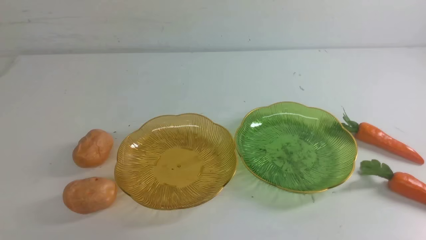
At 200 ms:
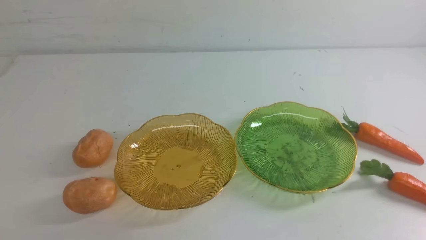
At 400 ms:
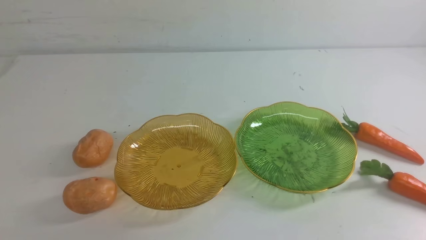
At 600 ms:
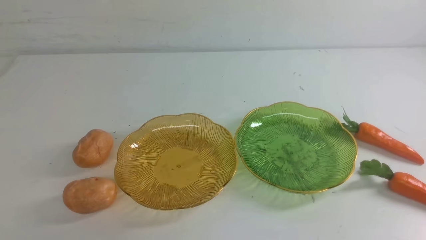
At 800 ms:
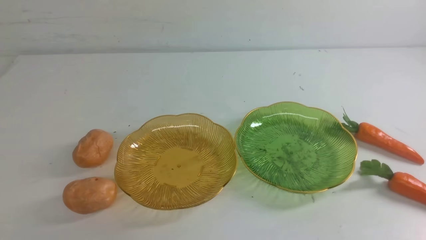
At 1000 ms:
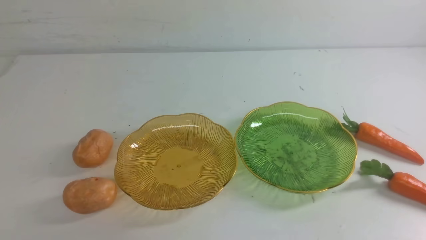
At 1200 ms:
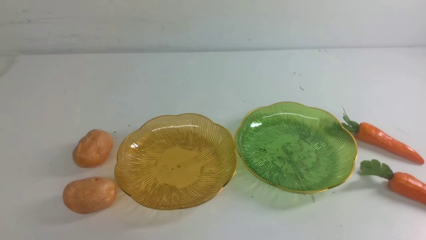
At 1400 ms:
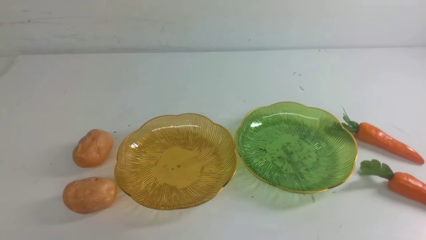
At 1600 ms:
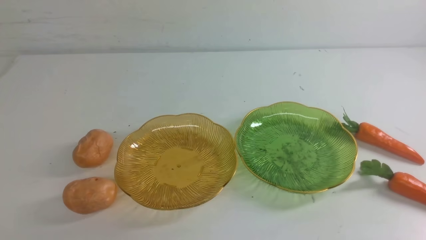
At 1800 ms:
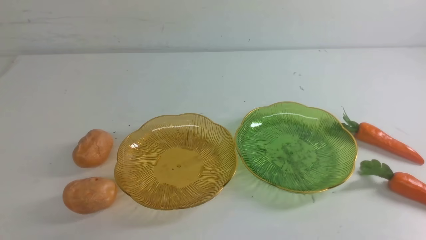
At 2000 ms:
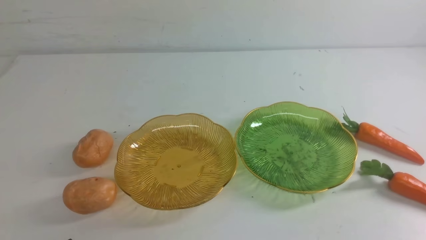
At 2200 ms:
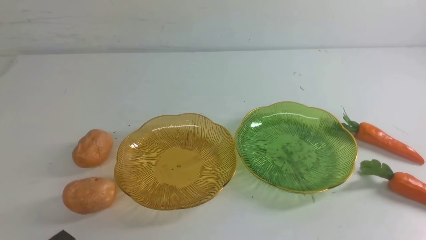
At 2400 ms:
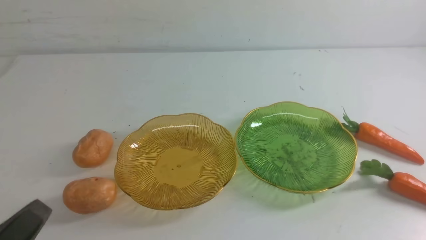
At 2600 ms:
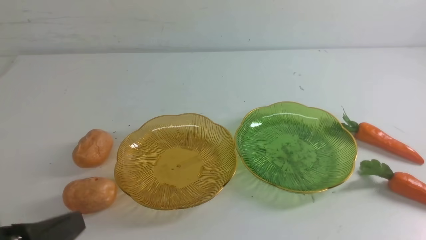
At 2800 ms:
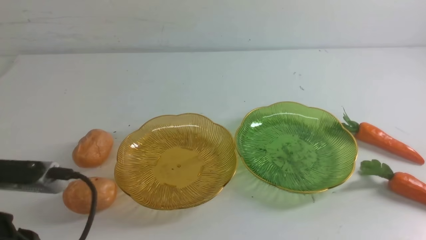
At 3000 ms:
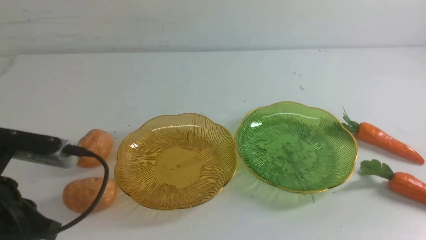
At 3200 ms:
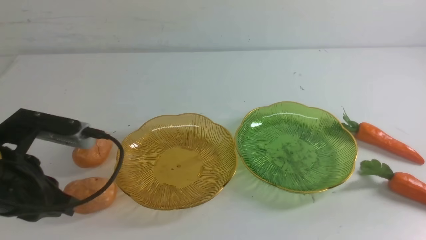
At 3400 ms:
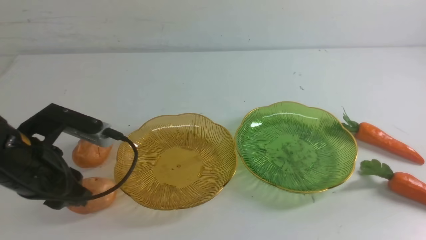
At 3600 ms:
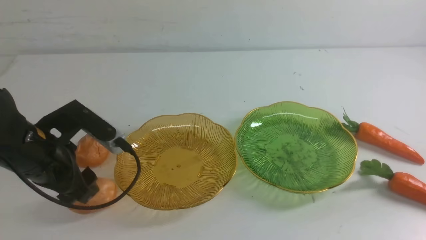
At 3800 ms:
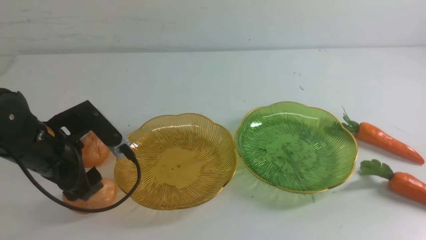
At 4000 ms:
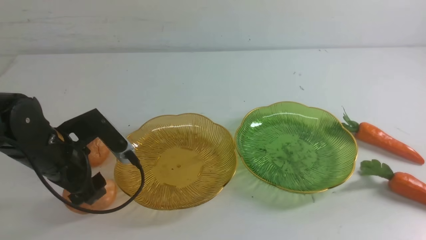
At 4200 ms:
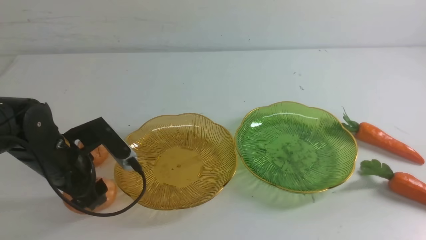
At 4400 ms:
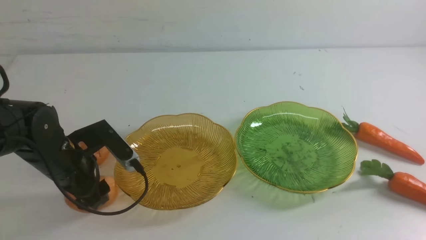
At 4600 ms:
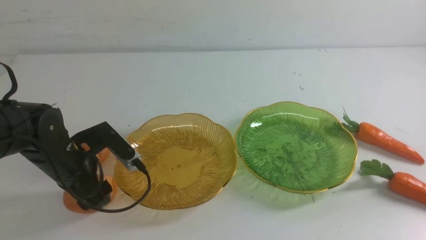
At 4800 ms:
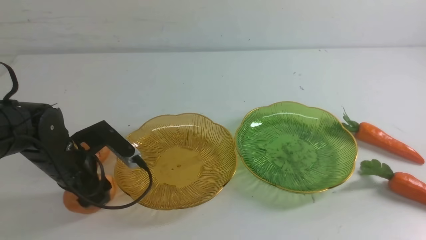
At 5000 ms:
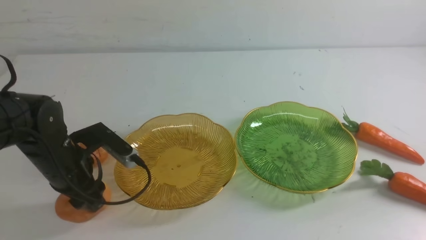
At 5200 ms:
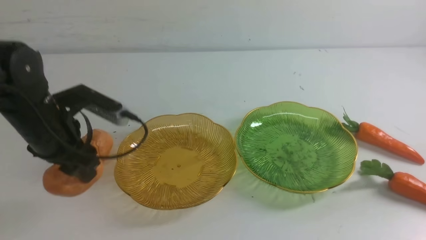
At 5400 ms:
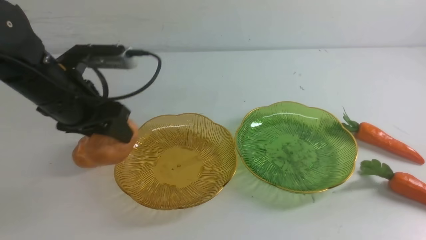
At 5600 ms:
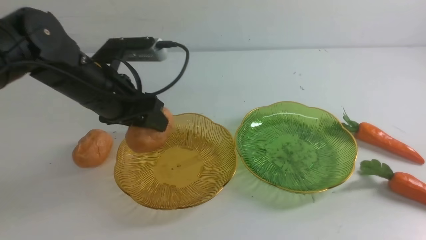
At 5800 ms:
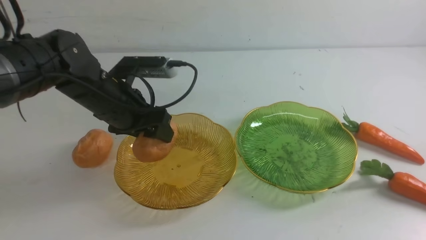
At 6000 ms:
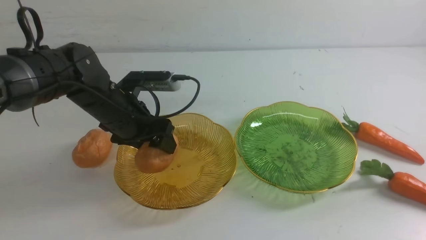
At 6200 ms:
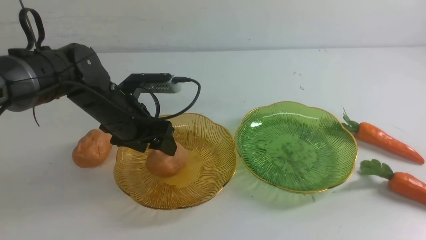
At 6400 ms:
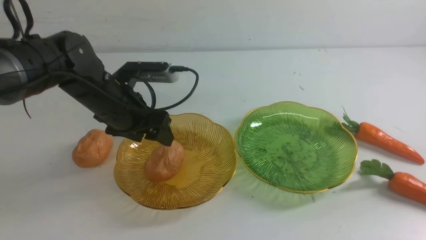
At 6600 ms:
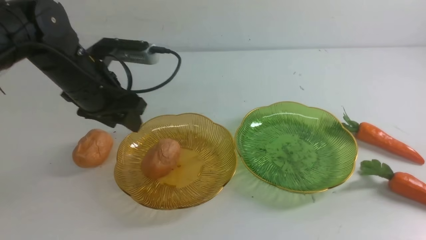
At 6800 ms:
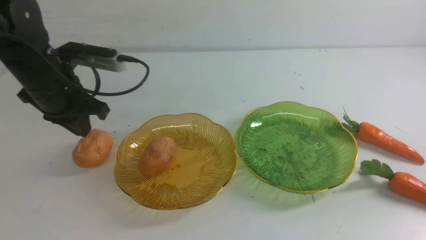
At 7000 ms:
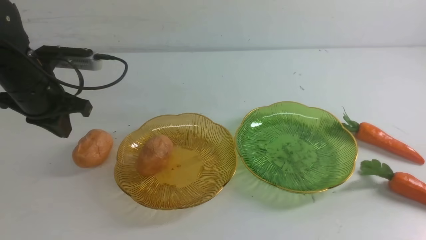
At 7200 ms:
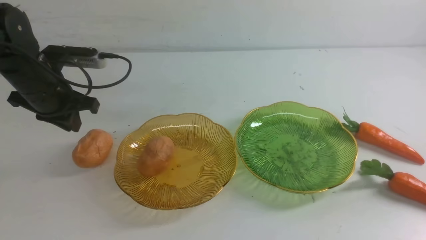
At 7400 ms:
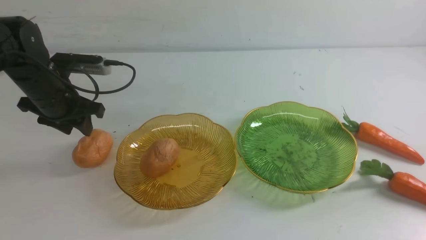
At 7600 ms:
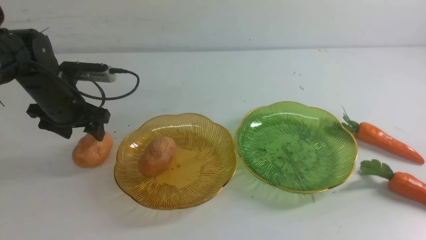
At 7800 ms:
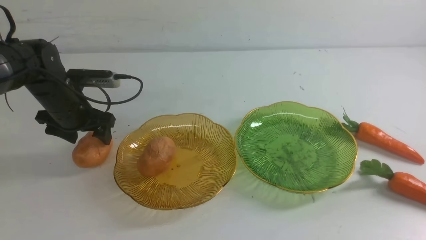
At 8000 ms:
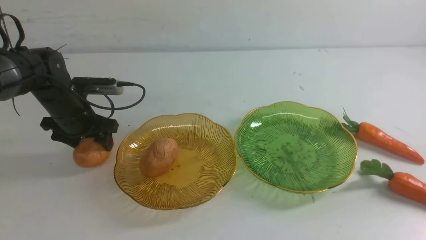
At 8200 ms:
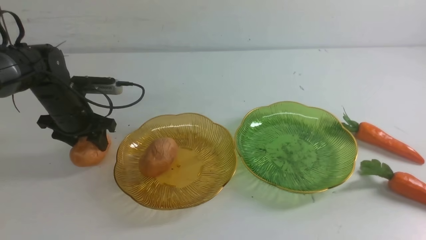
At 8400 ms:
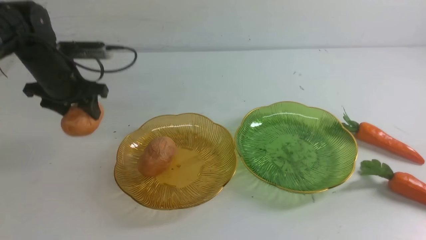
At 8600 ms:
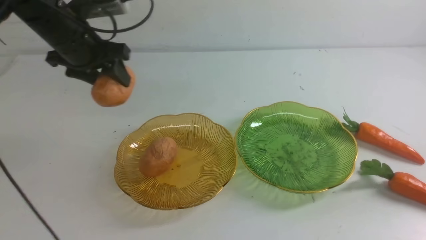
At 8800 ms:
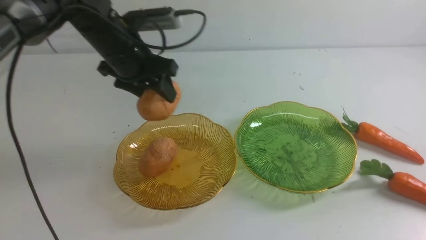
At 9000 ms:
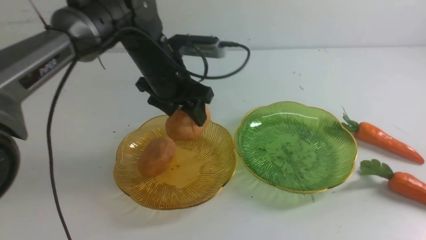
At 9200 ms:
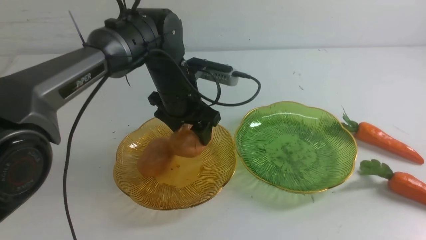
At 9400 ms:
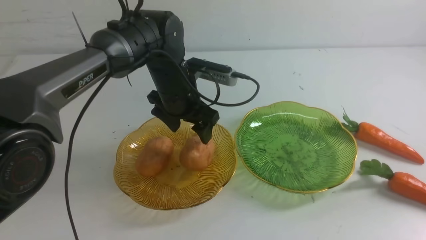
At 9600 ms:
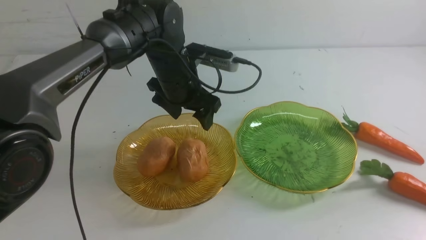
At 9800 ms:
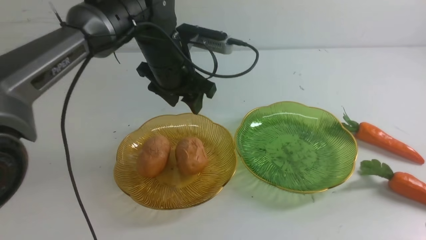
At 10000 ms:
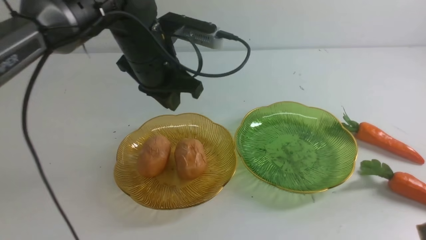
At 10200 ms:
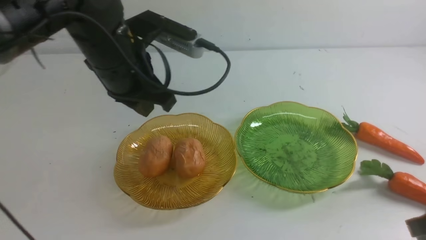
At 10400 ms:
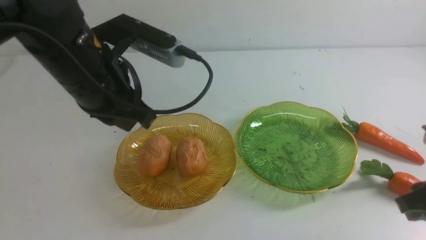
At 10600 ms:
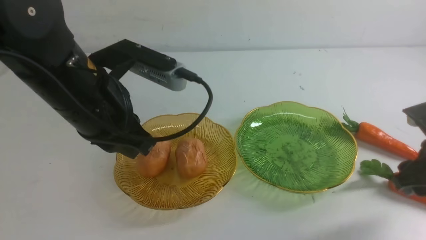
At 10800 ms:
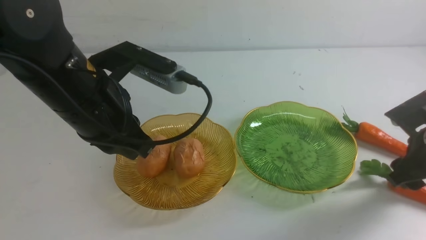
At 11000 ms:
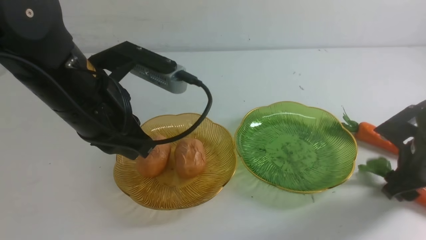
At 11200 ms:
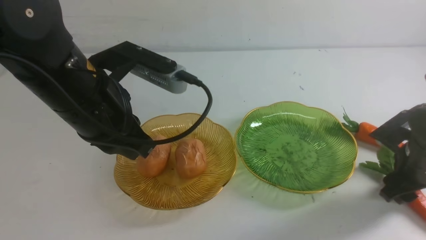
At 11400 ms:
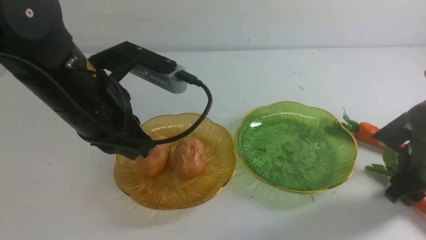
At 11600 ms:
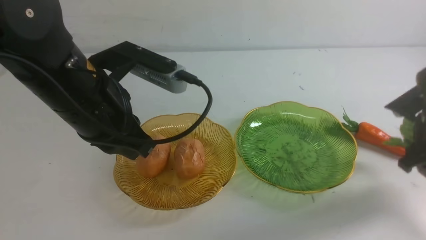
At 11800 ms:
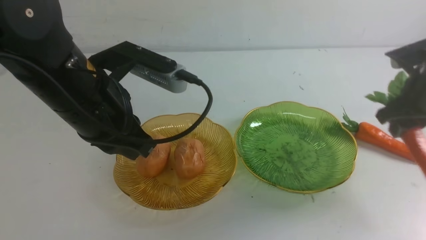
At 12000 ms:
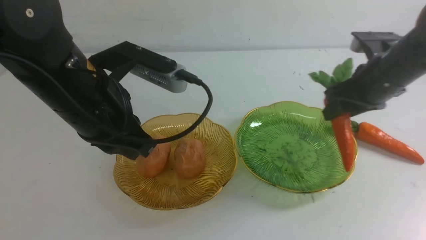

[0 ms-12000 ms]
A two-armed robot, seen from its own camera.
Step, 0 ms to 9400 ms: Grab a potato with your left arm and put it on the left plate.
1600 ms to 3000 ms: The left gripper goes approximately 15 cm forward and upward.
3000 ms to 4400 ms: The left gripper moves forward and downward, roughly 15 cm, and opens its fingers.
4400 ms to 6000 ms: The left gripper is displaced forward and to the right by approximately 10 cm.
6000 ms to 7600 ms: The left gripper heads to the left, covering approximately 10 cm, and closes, then reopens.
7600 ms to 9000 ms: The left gripper shifts roughly 15 cm to the right.
9000 ms to 10400 ms: The left gripper shifts roughly 15 cm backward and upward, and closes its fingers, while the right gripper moves forward, roughly 10 cm, and opens.
10400 ms to 12000 ms: The right gripper shifts approximately 20 cm forward and to the left.

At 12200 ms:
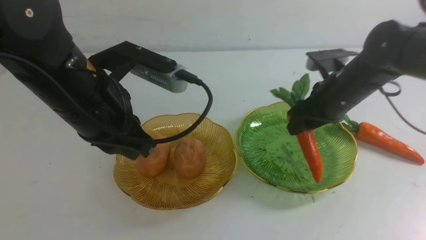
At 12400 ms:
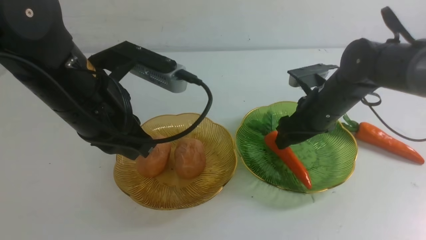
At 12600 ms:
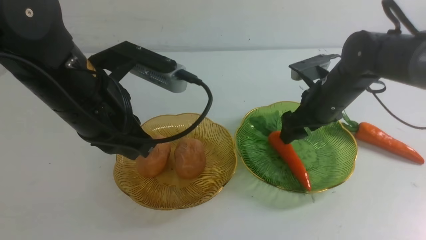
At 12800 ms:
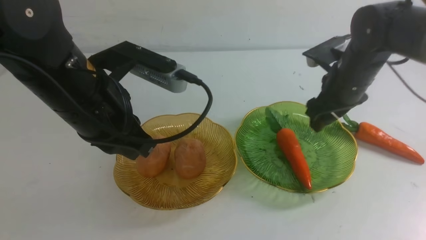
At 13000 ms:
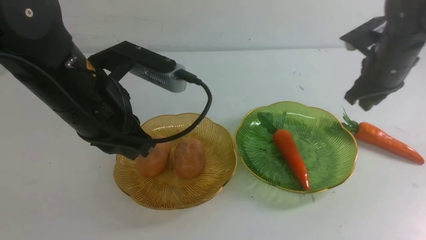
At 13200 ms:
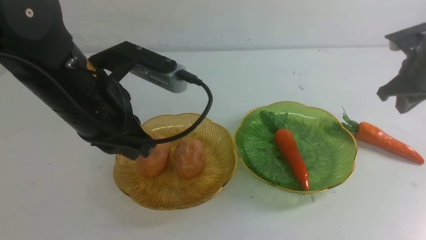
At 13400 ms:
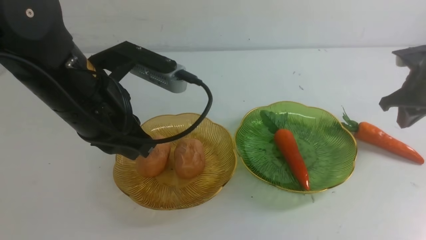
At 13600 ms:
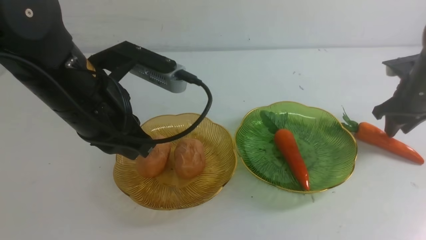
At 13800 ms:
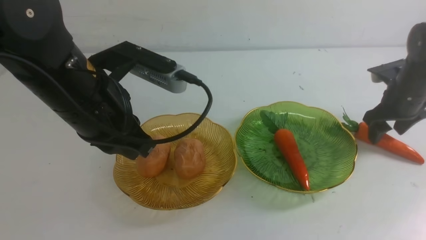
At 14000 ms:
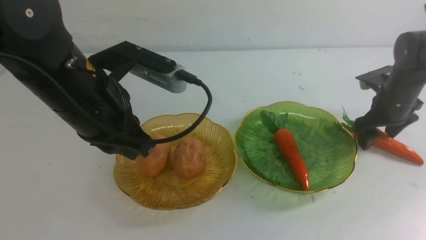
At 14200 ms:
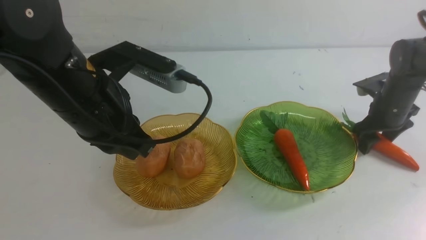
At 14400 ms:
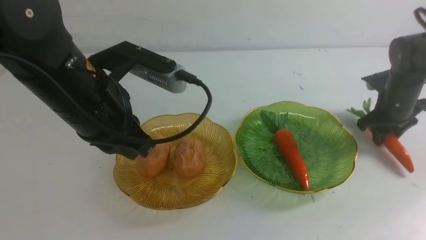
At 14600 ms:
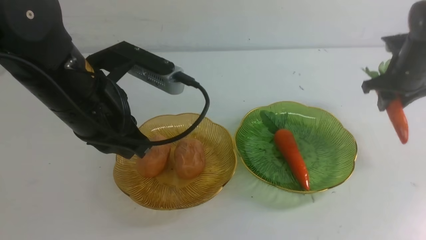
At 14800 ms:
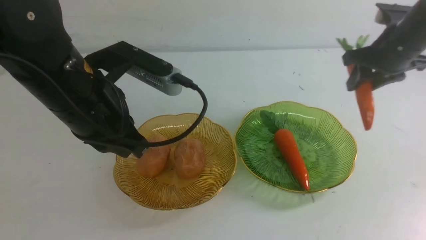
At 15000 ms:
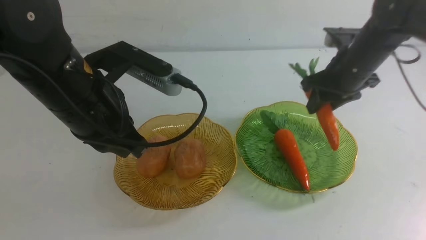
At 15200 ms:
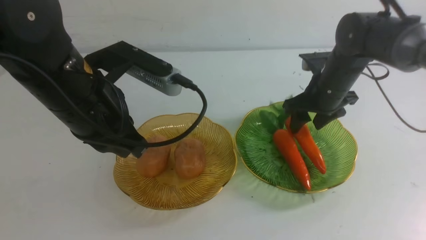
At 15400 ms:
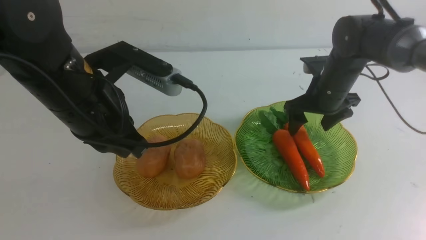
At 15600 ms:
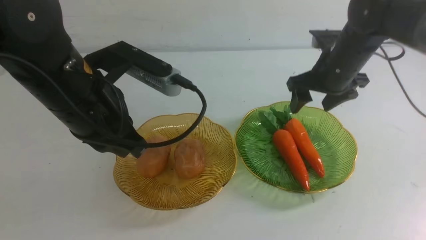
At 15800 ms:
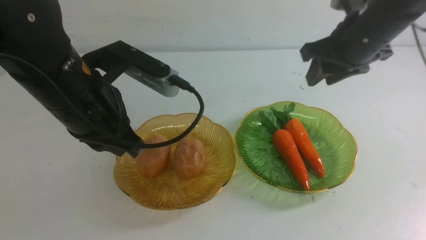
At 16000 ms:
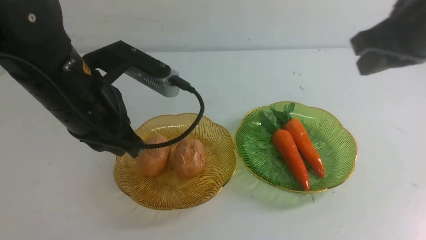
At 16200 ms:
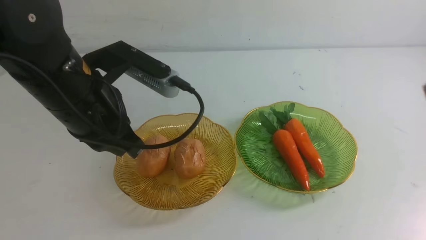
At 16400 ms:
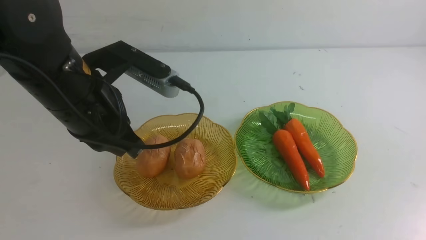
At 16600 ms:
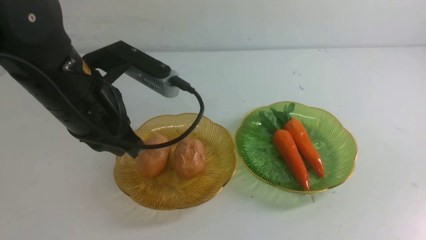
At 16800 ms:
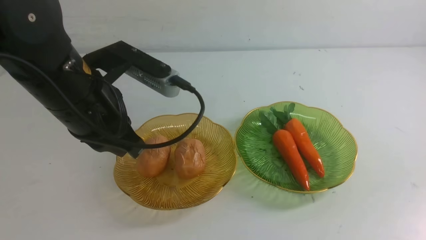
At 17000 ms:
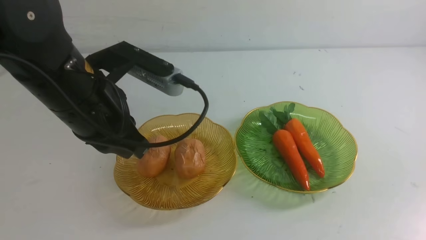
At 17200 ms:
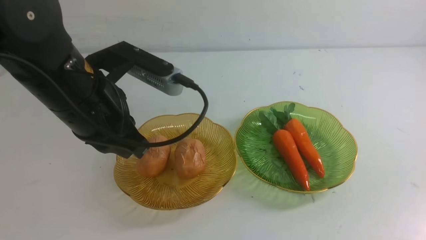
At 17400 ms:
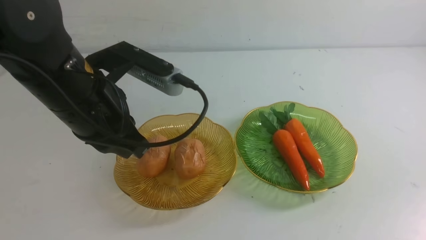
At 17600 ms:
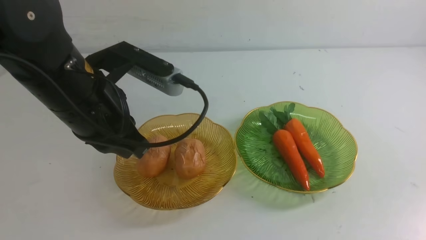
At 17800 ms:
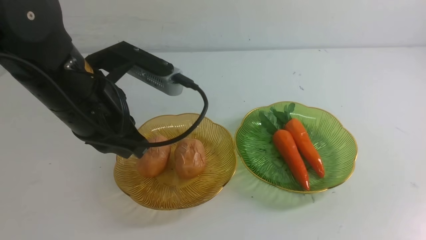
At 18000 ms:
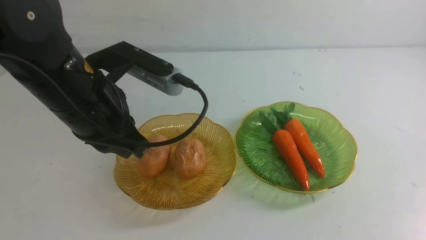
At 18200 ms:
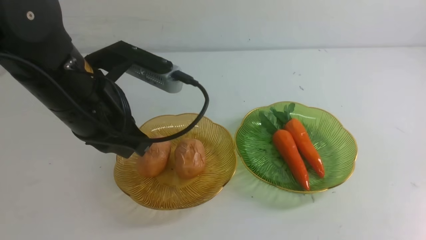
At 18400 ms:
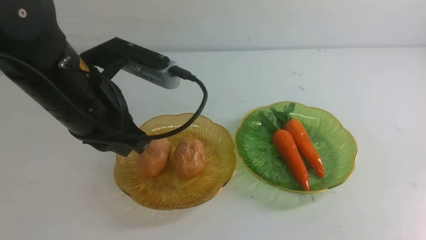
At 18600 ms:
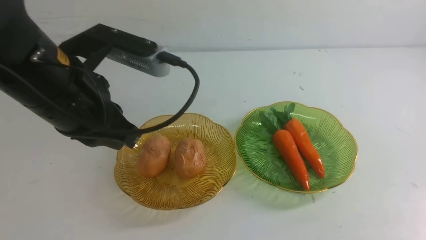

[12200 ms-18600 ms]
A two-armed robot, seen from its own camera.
Step, 12200 ms to 15400 ms: use the right arm to grab a carrot and put it into the right plate.
12200 ms to 13800 ms: The right gripper is displaced to the right, forward and downward by roughly 15 cm, and closes and opens again.
13800 ms to 15400 ms: The right gripper travels to the left and upward by approximately 15 cm.
15400 ms to 17000 ms: The right gripper is displaced backward by approximately 40 cm, and closes.
17000 ms to 18600 ms: The right gripper goes about 15 cm downward, while the left gripper moves backward, approximately 10 cm.
